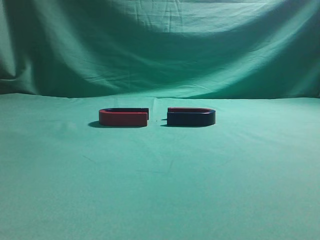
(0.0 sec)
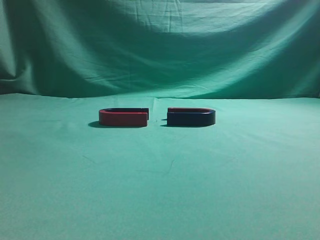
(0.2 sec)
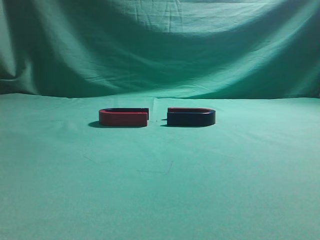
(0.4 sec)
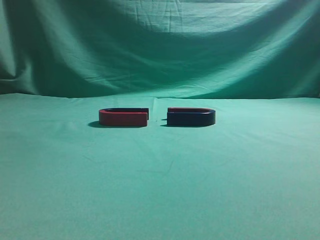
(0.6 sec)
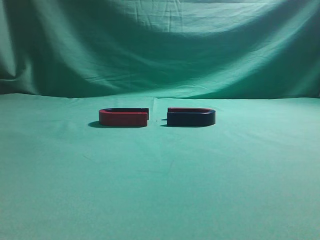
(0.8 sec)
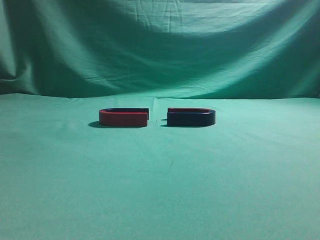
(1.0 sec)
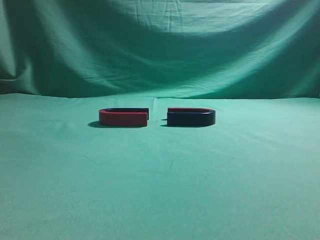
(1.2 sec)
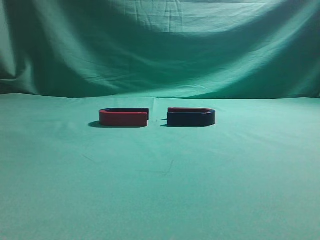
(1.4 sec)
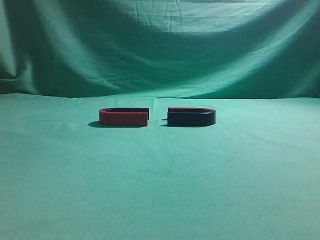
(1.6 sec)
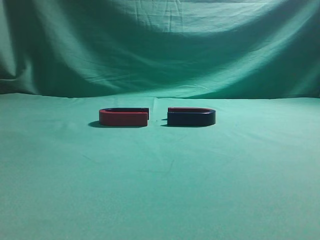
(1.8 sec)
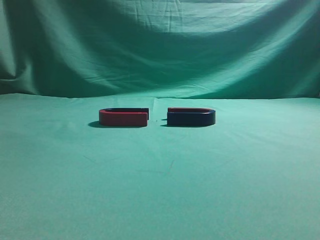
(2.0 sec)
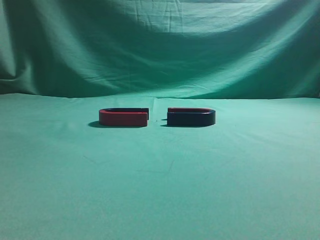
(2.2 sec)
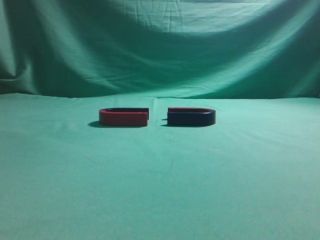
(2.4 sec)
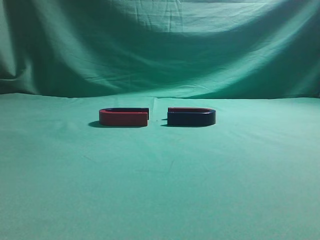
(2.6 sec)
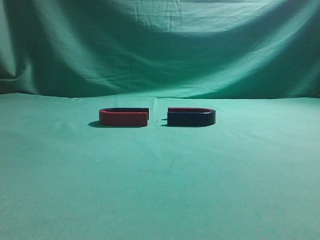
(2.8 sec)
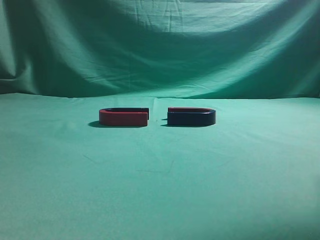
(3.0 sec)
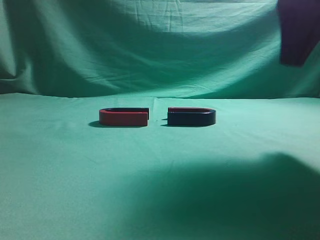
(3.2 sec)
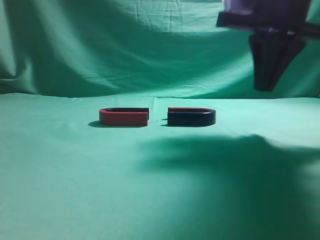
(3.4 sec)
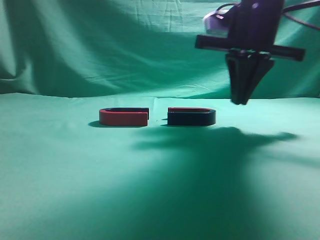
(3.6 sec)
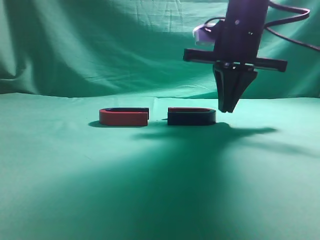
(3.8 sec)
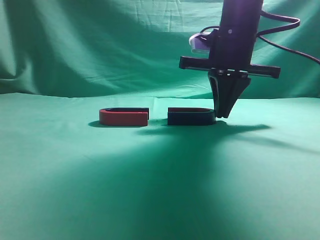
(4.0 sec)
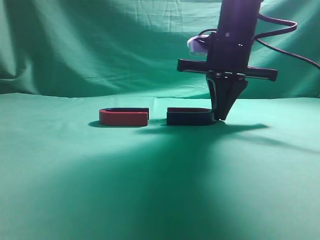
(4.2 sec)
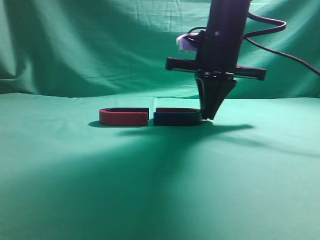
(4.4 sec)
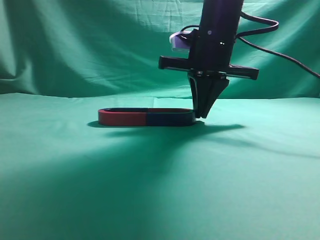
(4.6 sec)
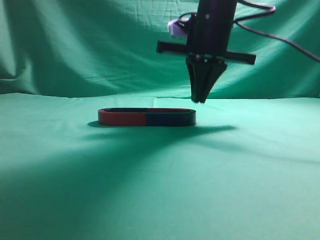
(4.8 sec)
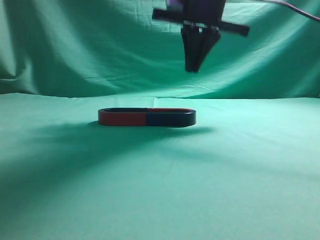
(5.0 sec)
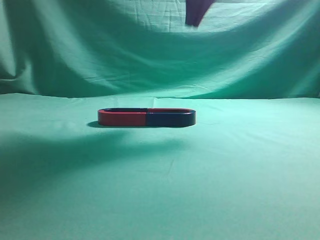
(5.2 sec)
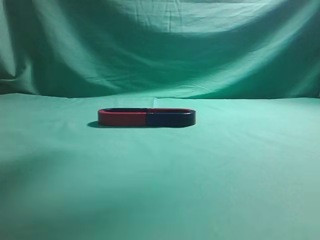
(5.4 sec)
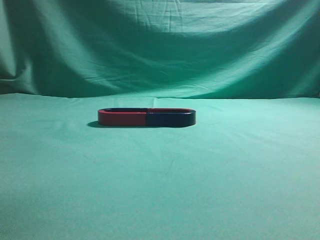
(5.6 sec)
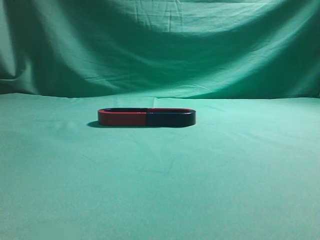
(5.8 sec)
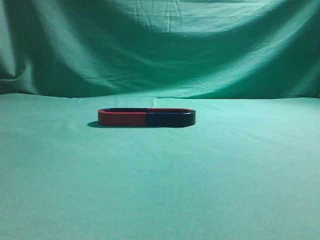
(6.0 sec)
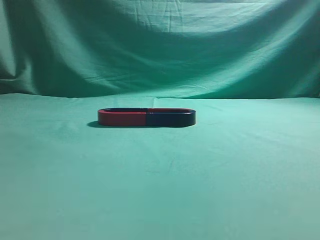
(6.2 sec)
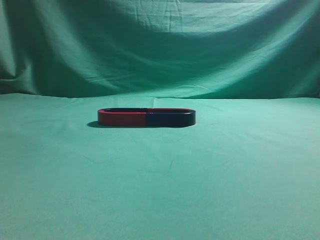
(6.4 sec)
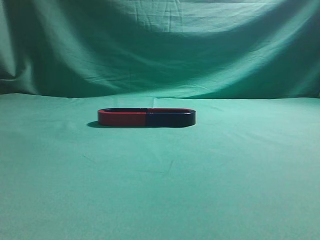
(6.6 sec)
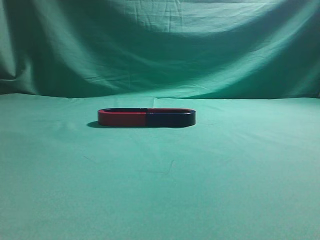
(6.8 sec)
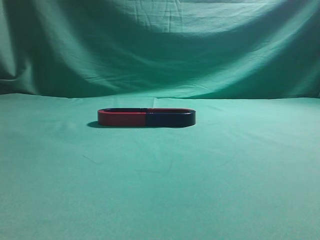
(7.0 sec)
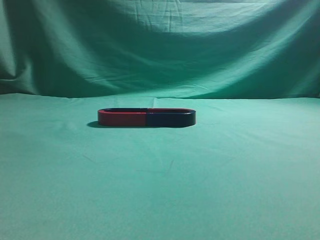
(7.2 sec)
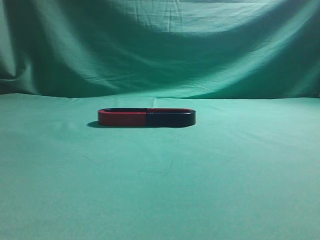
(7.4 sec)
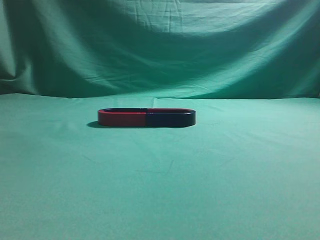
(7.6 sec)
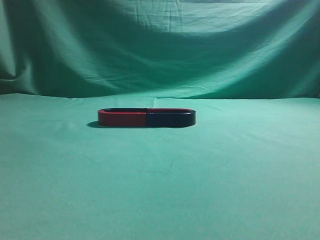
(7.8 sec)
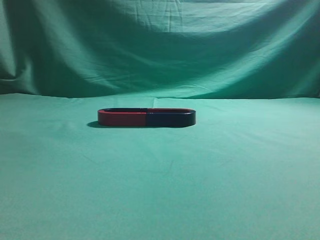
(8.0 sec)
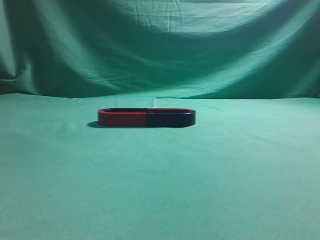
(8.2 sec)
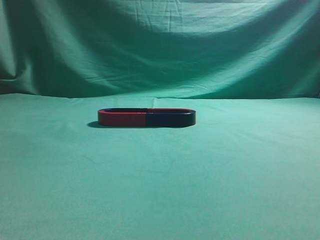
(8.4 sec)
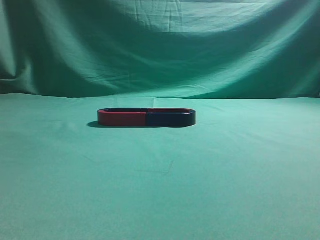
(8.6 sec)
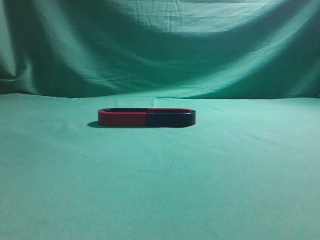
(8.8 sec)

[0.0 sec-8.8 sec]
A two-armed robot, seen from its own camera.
Task of the whole recording: push the magnet on the table from its original position to another position.
Step, 0.0 sec to 4.6 sec: Push the magnet on the right to connect the magnet on the left.
1.4 sec to 3.0 sec: The right gripper is displaced forward and upward by some 20 cm.
3.0 sec to 4.4 sec: The right gripper heads forward, to the left and downward, covering approximately 20 cm.
4.4 sec to 5.8 sec: The right gripper goes some 25 cm upward and backward.
